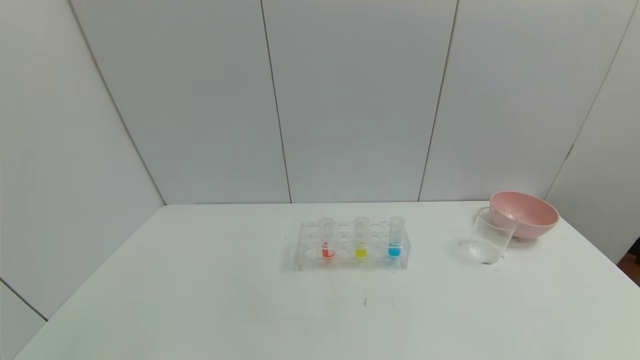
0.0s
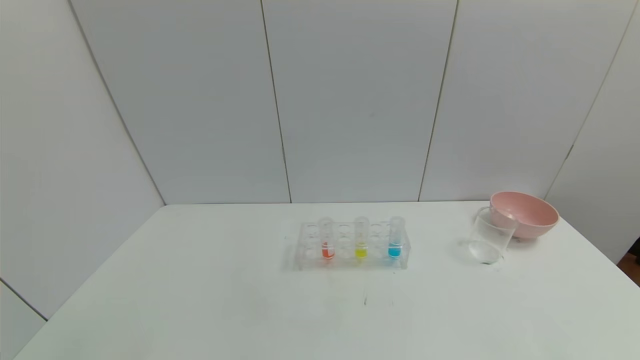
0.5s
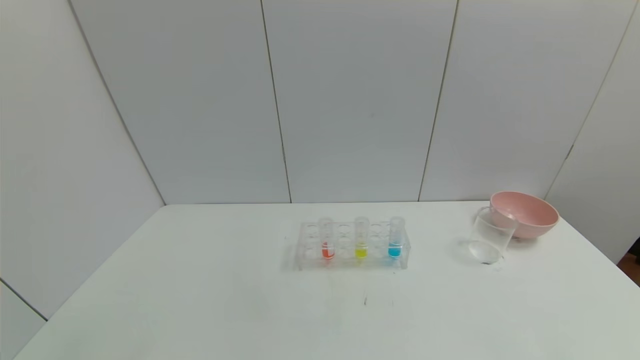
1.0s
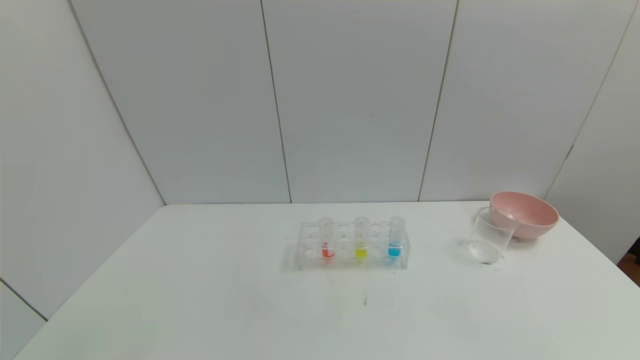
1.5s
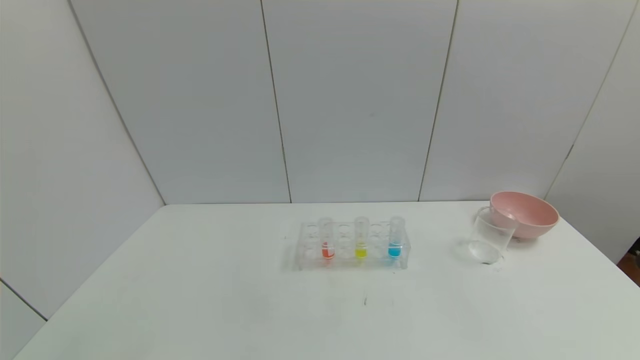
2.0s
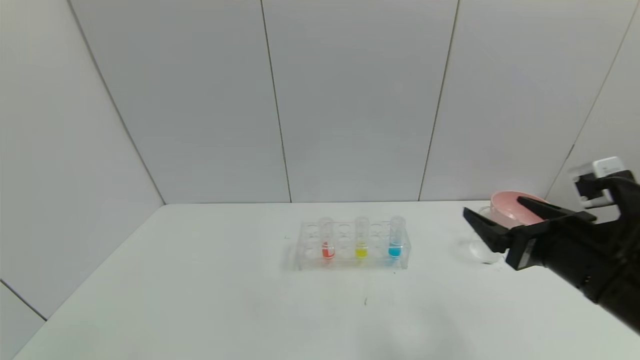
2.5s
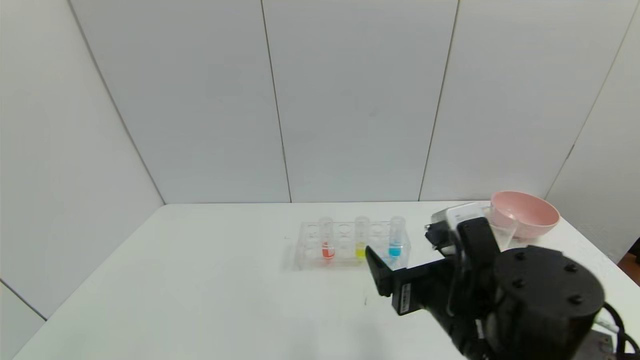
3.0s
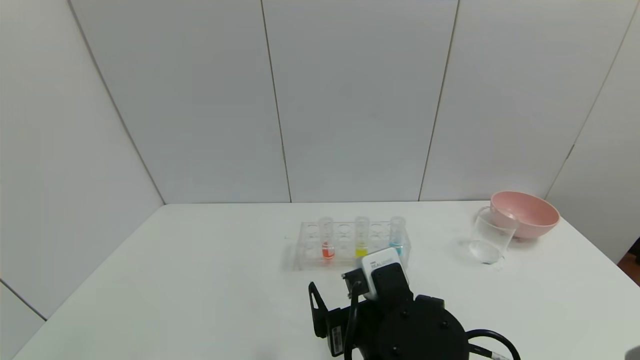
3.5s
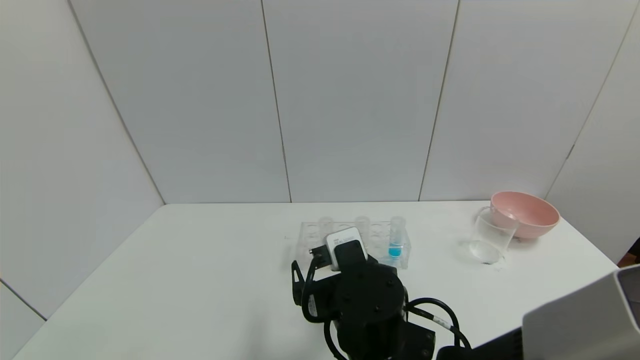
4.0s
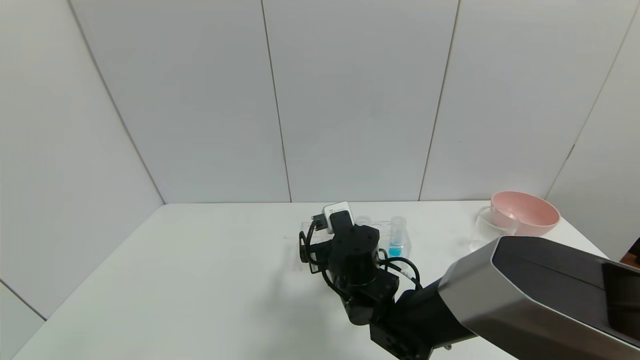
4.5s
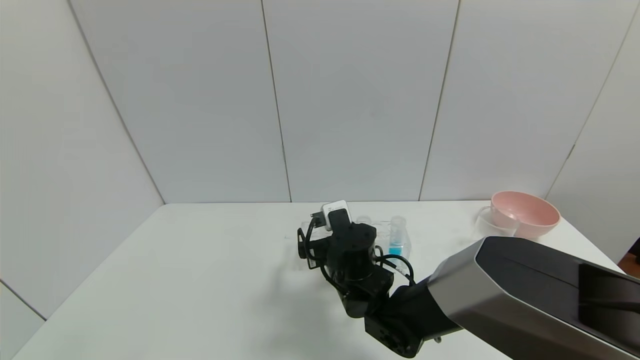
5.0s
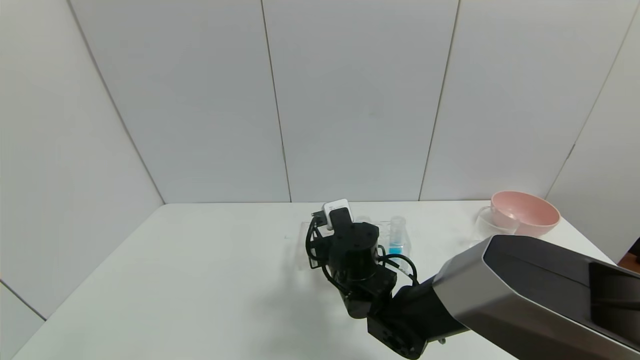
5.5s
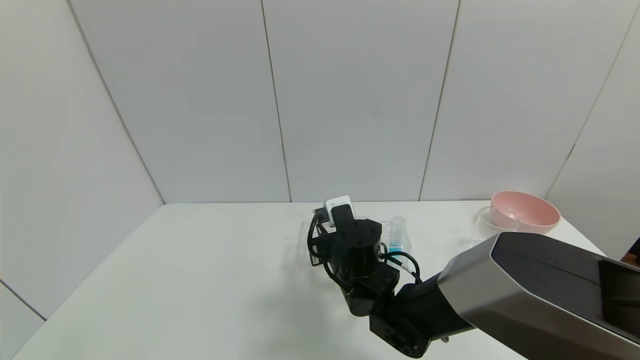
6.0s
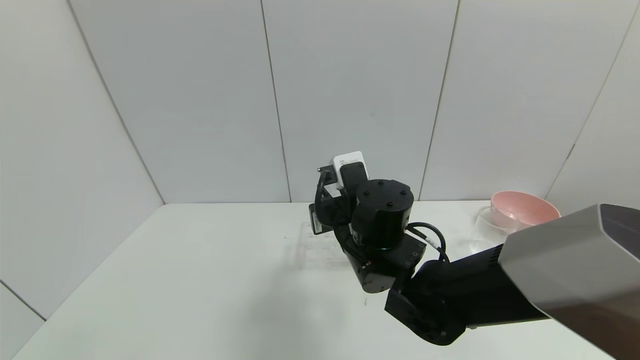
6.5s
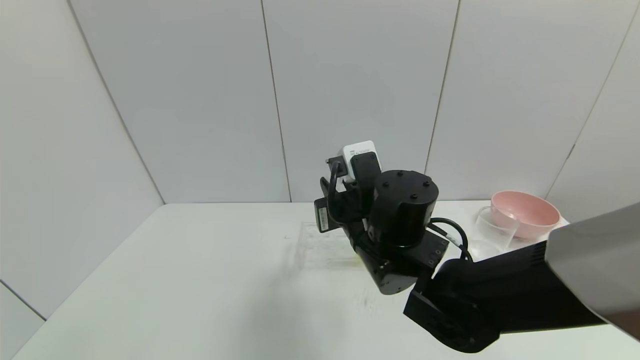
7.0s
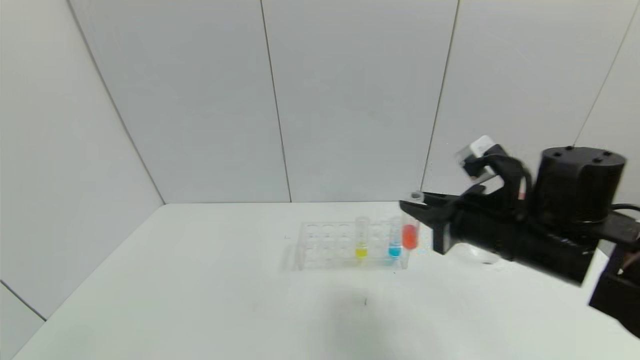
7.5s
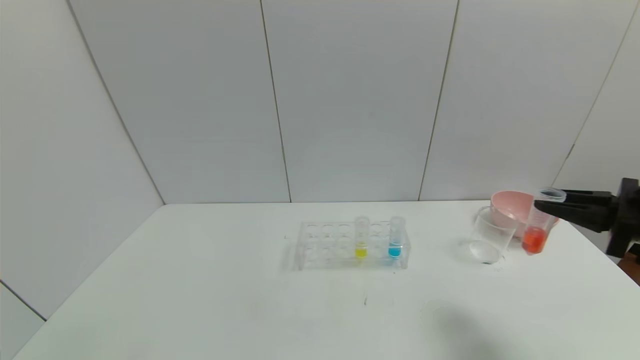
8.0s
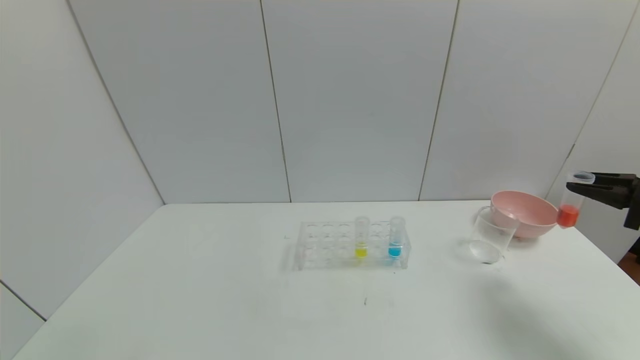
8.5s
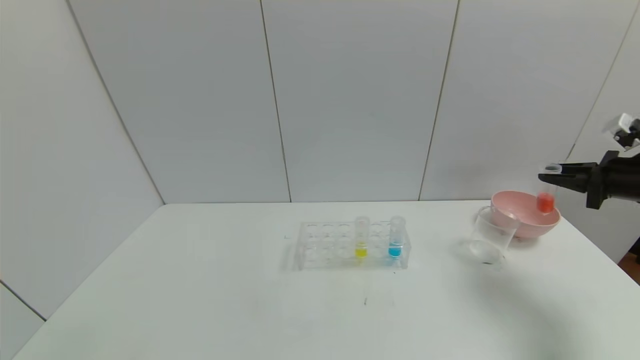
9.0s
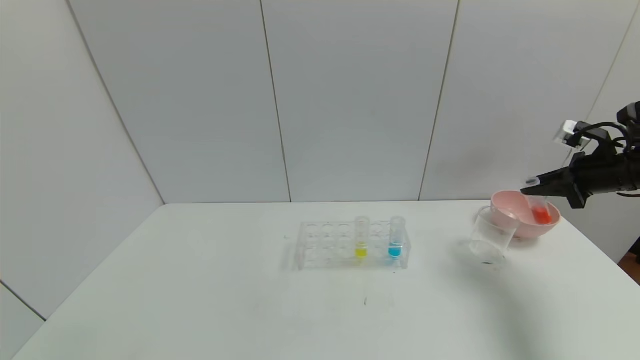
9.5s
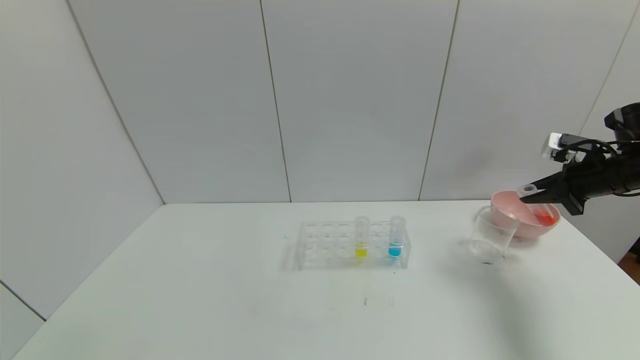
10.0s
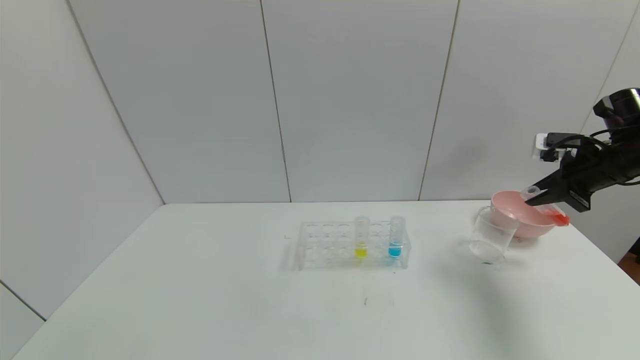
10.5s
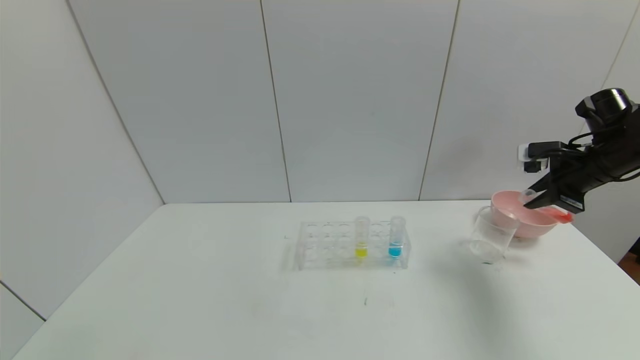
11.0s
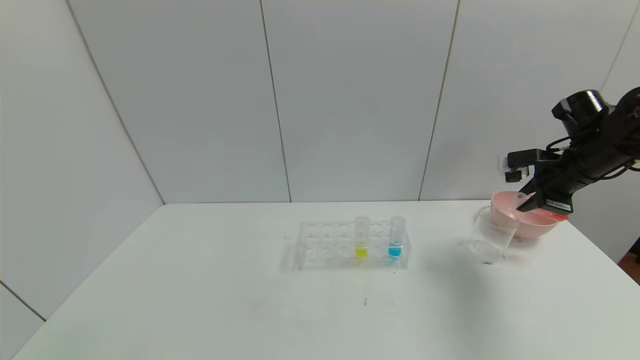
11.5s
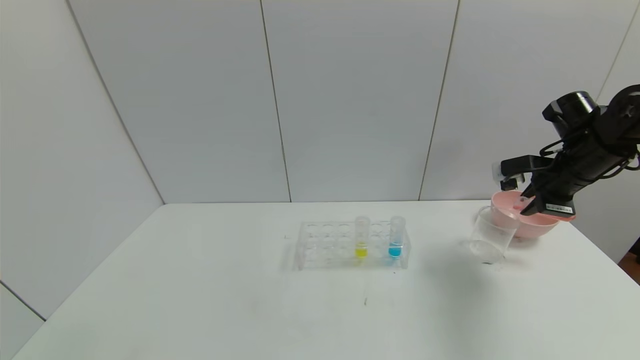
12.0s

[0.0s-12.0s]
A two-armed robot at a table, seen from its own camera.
Task of the whole recording: pick up the test tube with red pigment and the test tube with blue pigment by grippers and pour them into the container.
Step, 0.0s to 5.5s: Grasp the red reagent with the right gripper.
2.0s to 4.0s: The right gripper is displaced to the left and forward by some 35 cm.
4.0s to 6.0s: The right gripper shifts approximately 10 cm forward, and closes.
6.0s to 8.0s: The right gripper heads to the right, covering about 35 cm.
8.0s to 10.0s: The right gripper goes about 15 cm forward and to the right.
10.0s to 12.0s: The right gripper goes some 5 cm to the left.

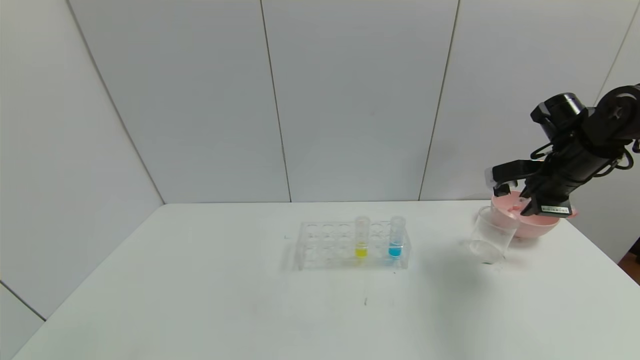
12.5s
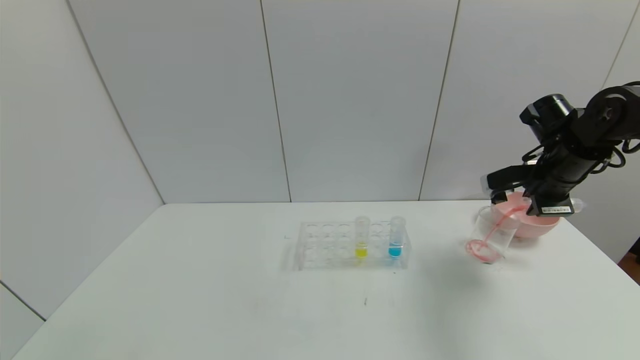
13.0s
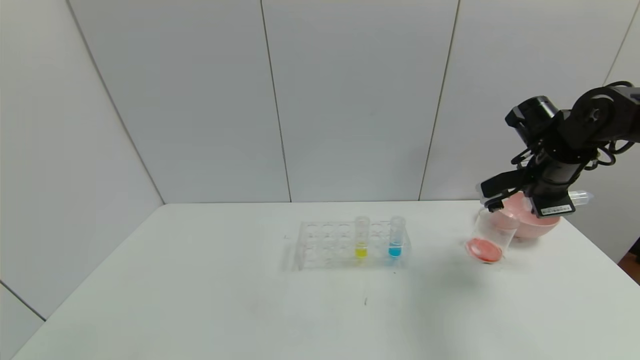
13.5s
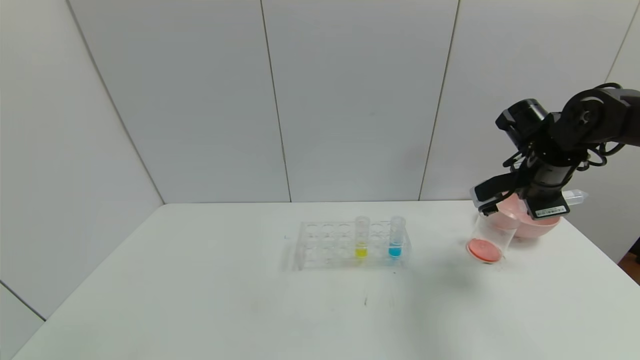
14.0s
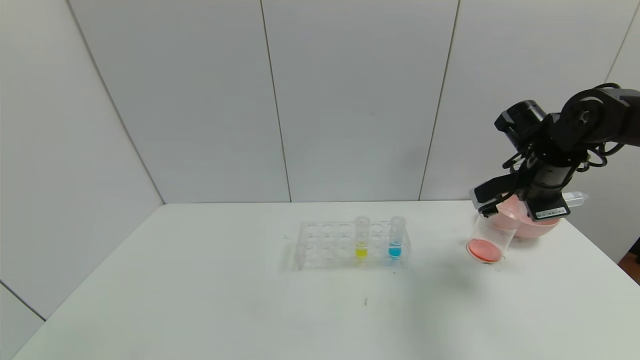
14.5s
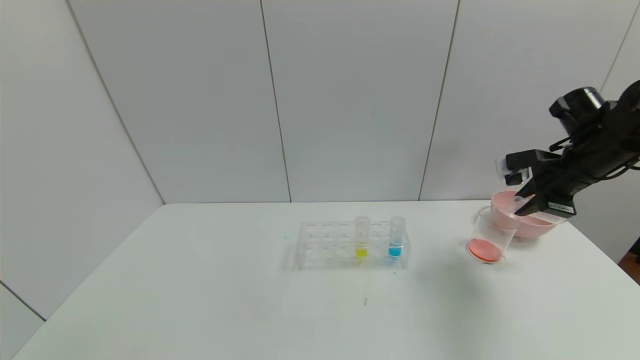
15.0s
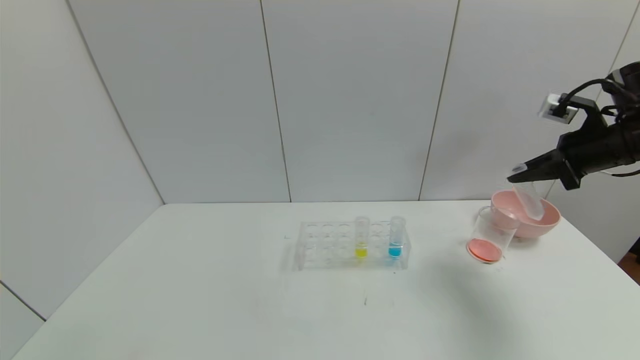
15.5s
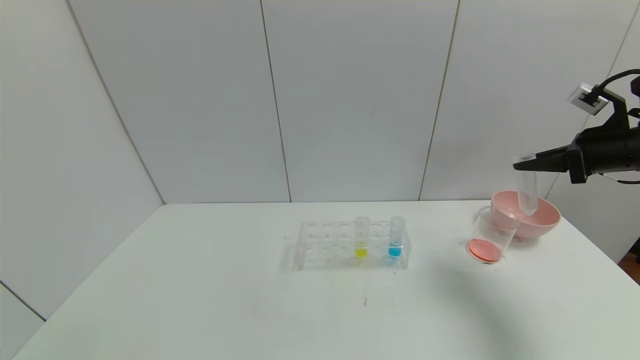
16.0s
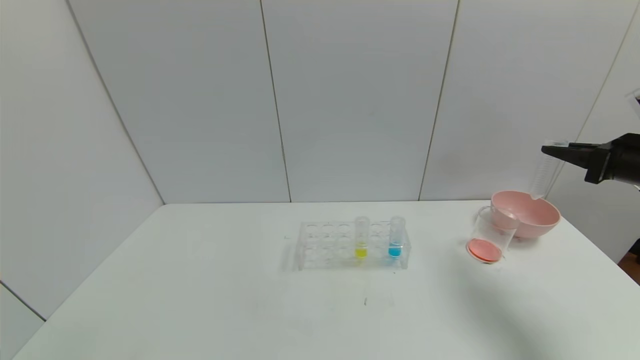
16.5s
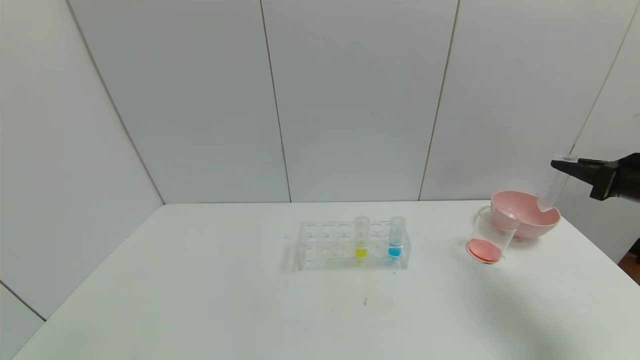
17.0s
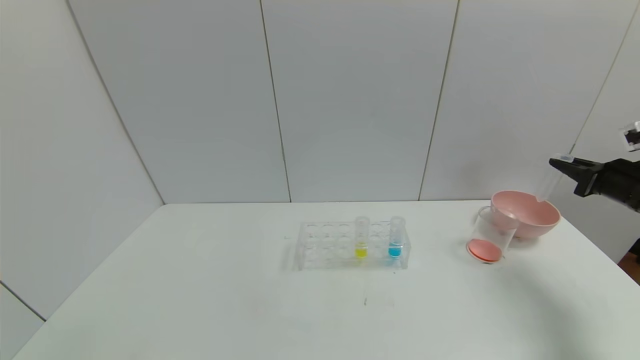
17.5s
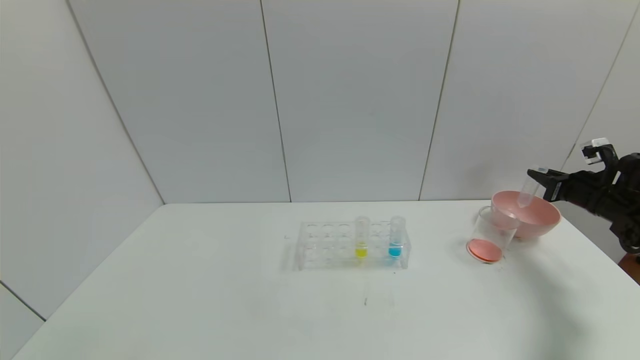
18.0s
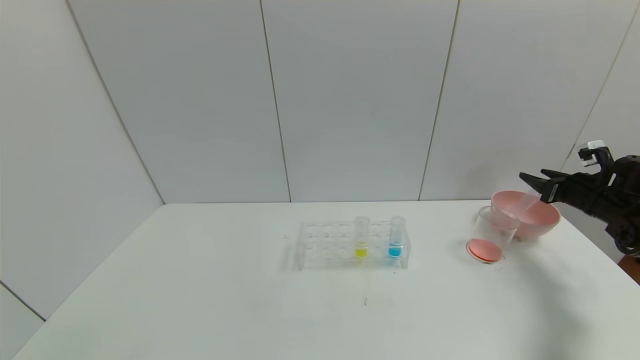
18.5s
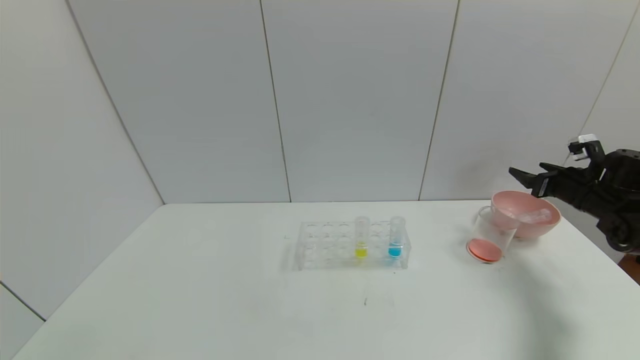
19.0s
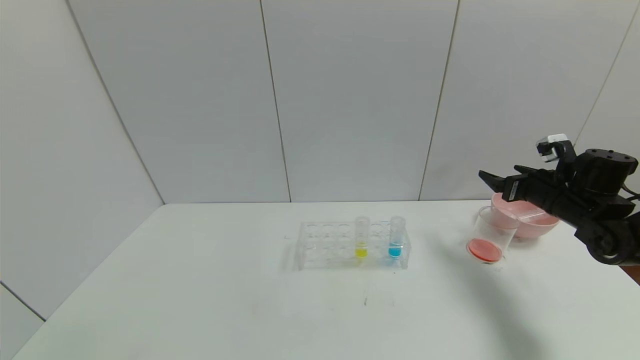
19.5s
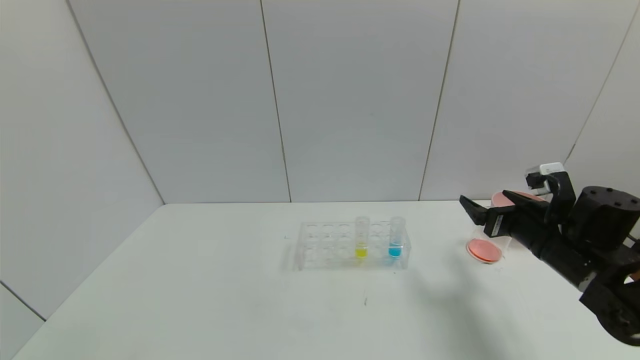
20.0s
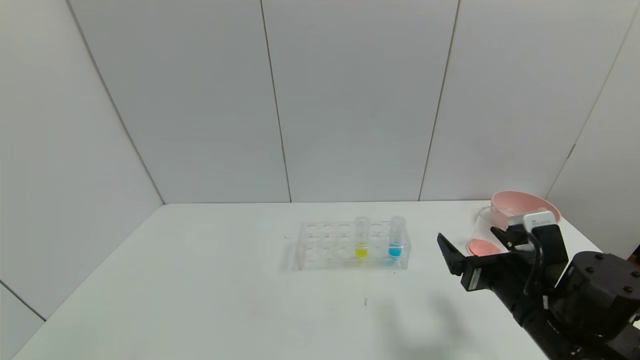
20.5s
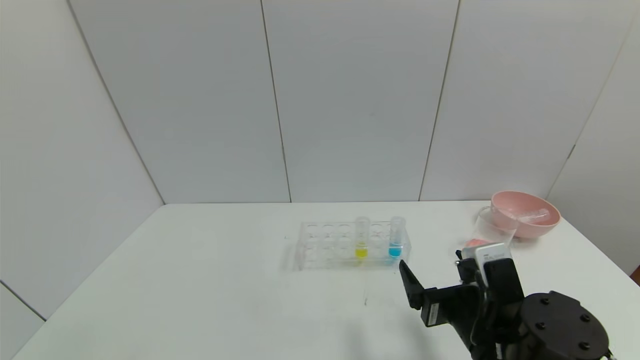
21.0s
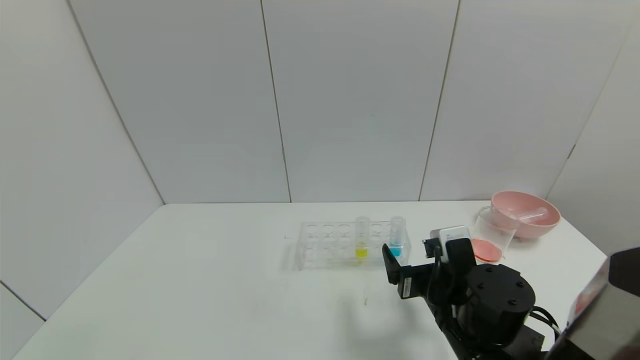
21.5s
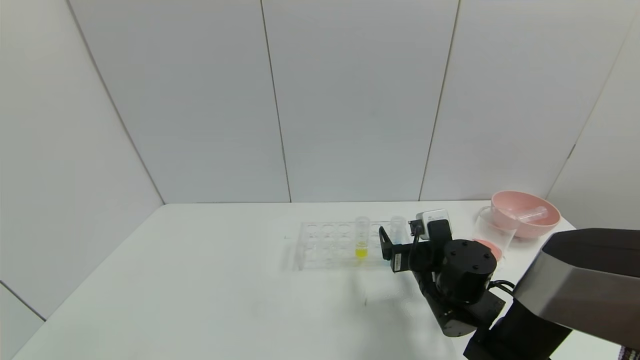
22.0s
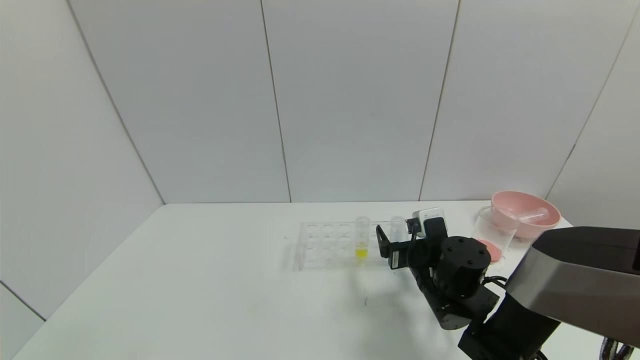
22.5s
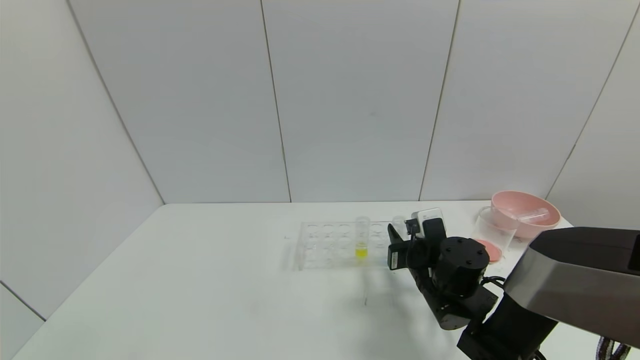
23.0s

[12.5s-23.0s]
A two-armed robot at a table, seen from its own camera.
Task of the whole recording: pick up the test tube with red pigment and the test tube with blue pigment by grippers and pour them into the container.
Step, 14.0s to 18.5s: Place the test tube into the bowl with the right gripper.
14.5s to 16.5s: The right gripper is displaced to the right and backward by about 15 cm.
16.5s to 19.0s: The right gripper goes some 15 cm downward and forward, and opens its fingers.
19.0s to 21.0s: The right gripper is displaced to the left and backward by approximately 35 cm.
21.0s to 23.0s: The right gripper travels forward by approximately 10 cm, and closes up.
